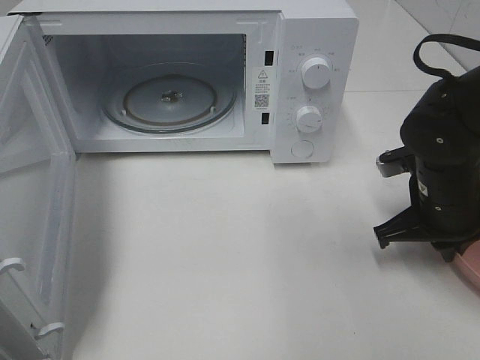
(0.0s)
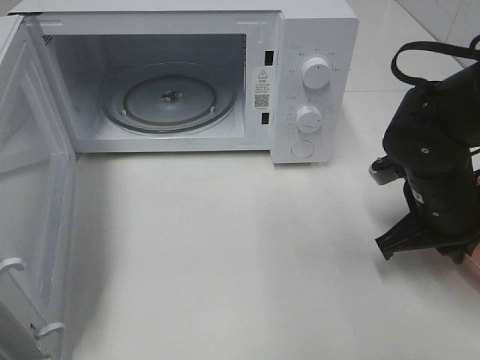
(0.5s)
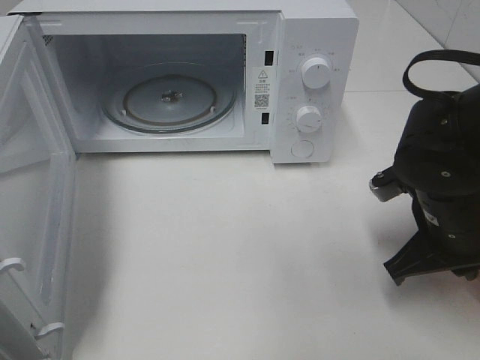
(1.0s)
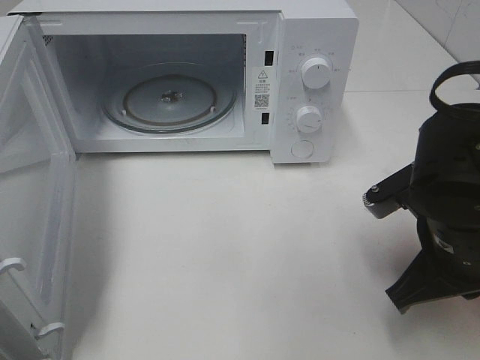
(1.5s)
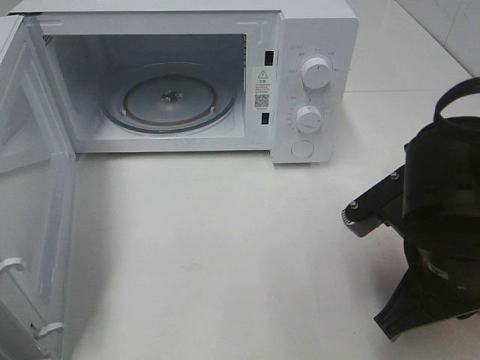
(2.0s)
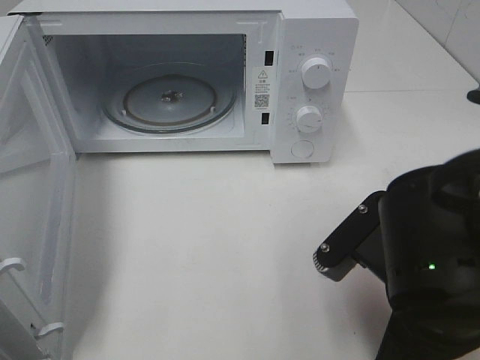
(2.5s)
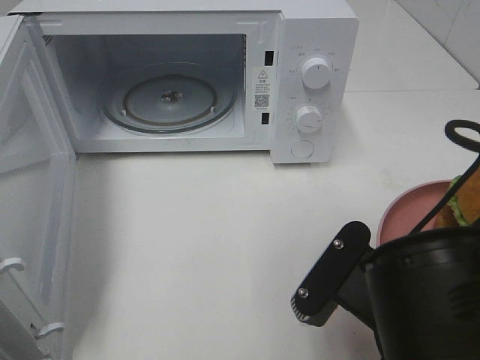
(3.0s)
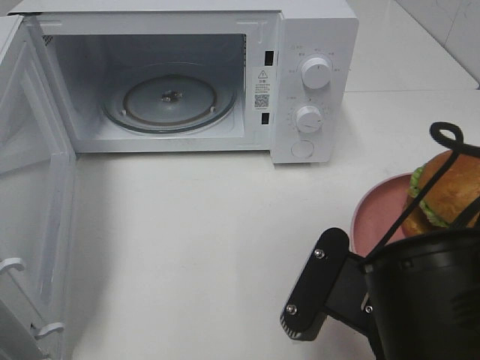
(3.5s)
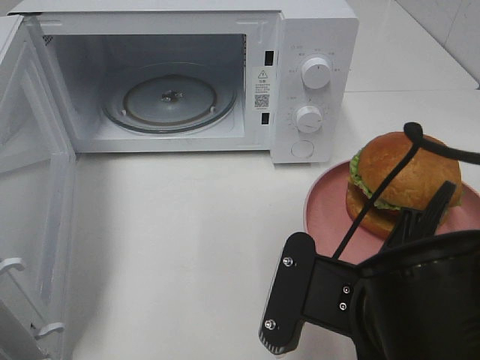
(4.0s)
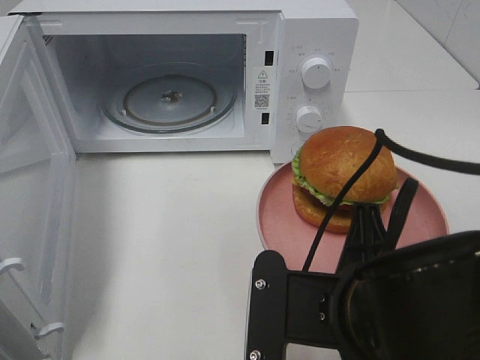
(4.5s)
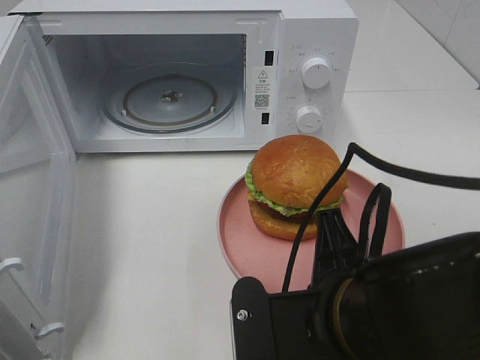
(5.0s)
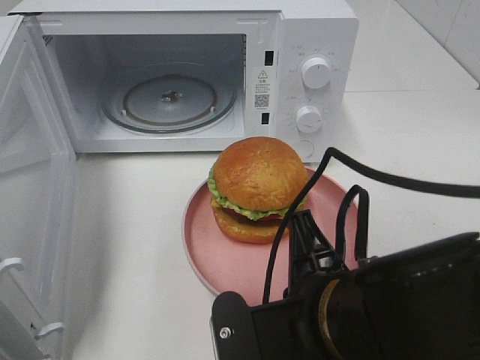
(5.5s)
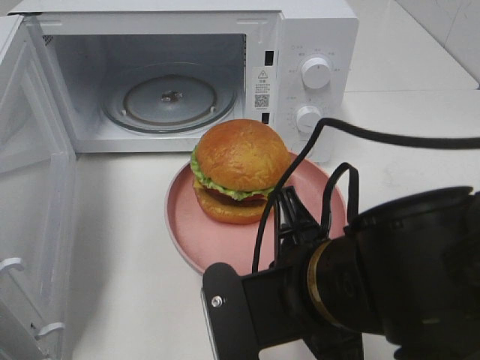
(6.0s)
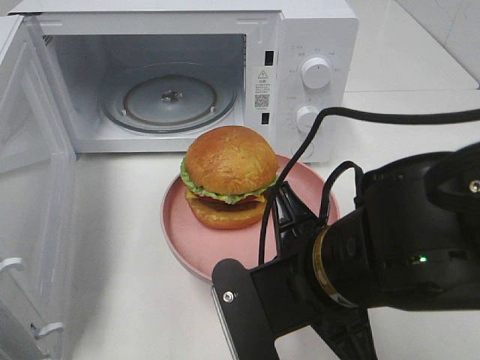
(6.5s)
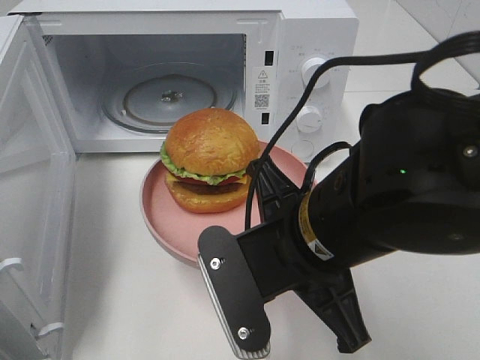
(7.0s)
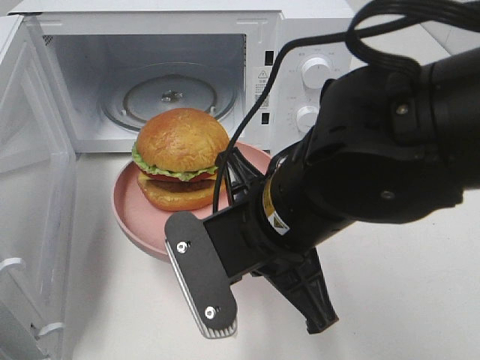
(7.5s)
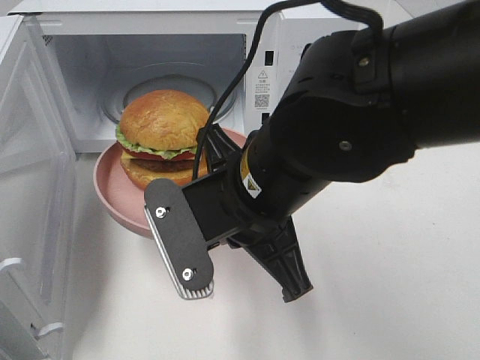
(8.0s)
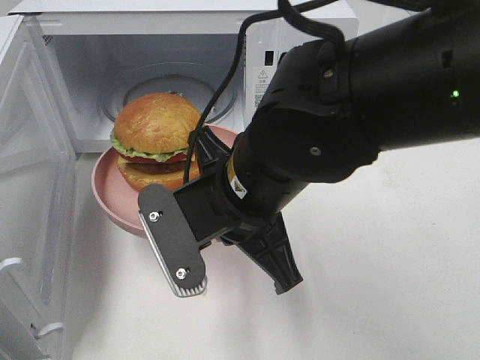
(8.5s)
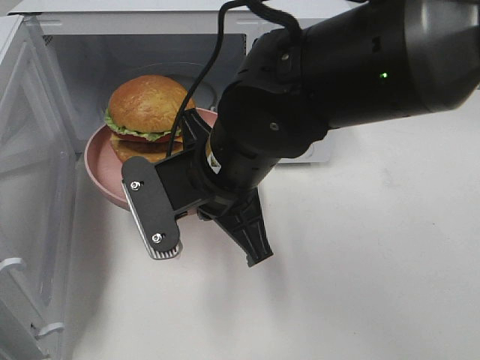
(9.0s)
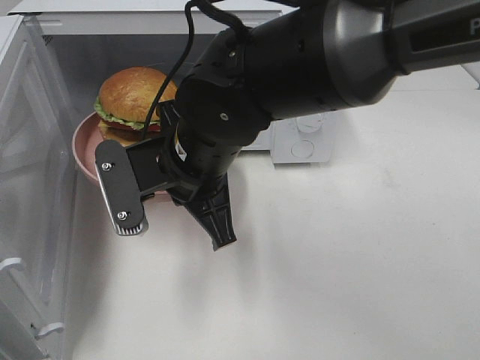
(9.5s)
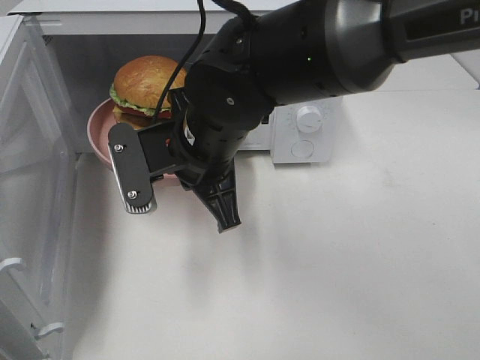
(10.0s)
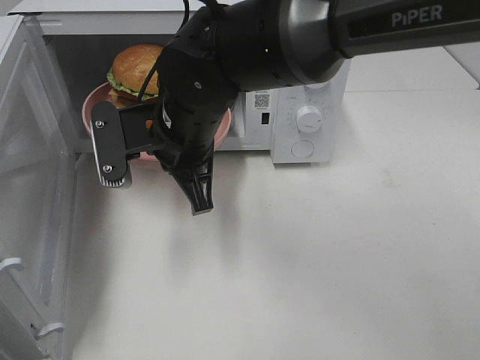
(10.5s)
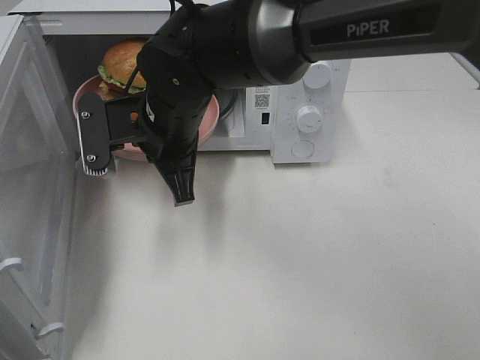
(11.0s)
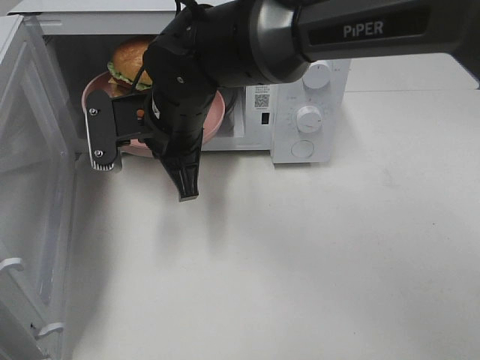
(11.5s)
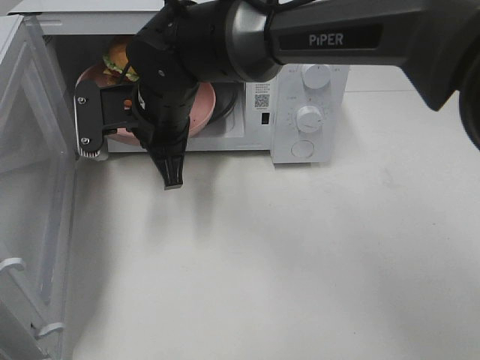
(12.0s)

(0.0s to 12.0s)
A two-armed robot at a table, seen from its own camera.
Task of the whole recording: Heat the burger.
0.0s - 2.0s: The right gripper heads backward and to the left, covering approximately 15 cm.
2.0s - 4.0s: The right gripper is displaced to the left and backward by about 10 cm.
6.0s - 8.0s: The right gripper is displaced forward by approximately 5 cm.
8.0s - 10.0s: The right gripper heads forward, covering roughly 10 cm.
10.0s - 12.0s: The right gripper goes approximately 10 cm forward and to the left.

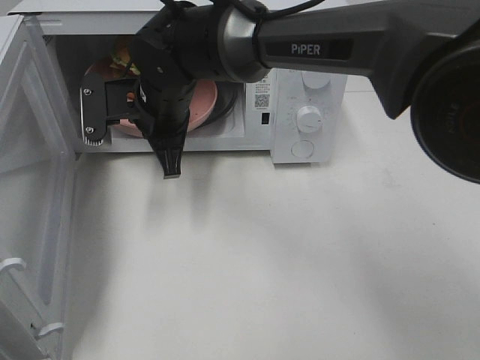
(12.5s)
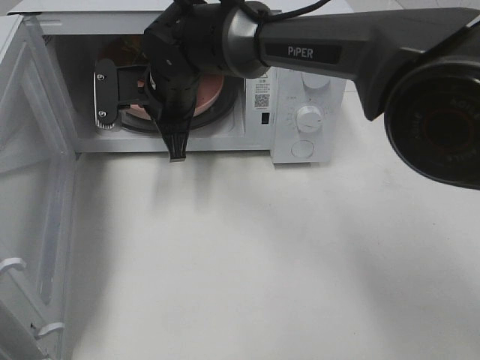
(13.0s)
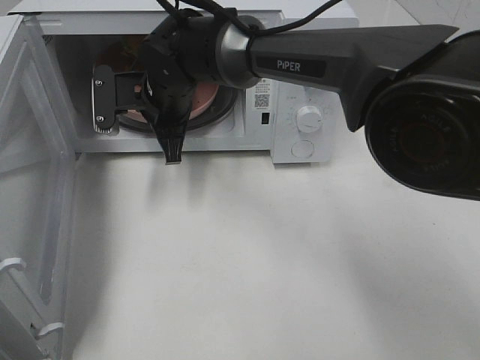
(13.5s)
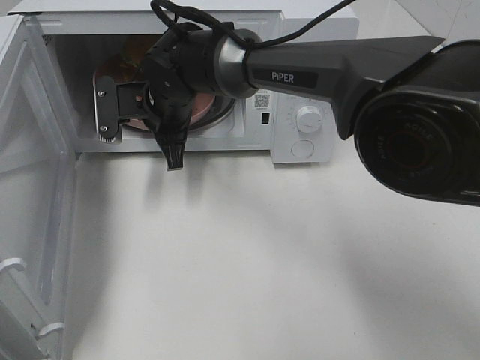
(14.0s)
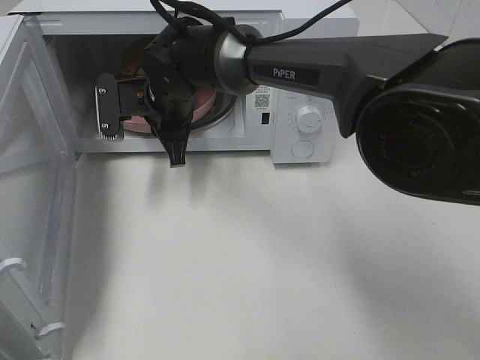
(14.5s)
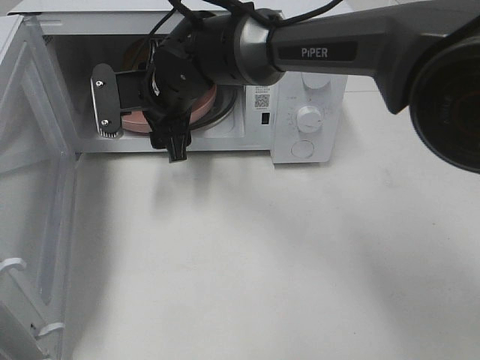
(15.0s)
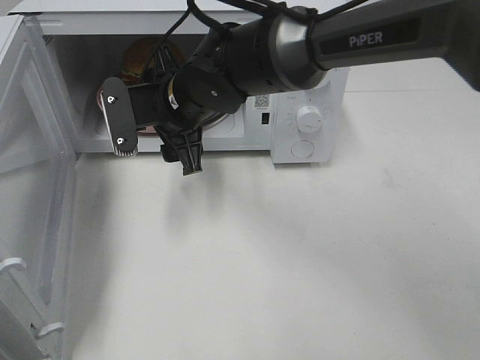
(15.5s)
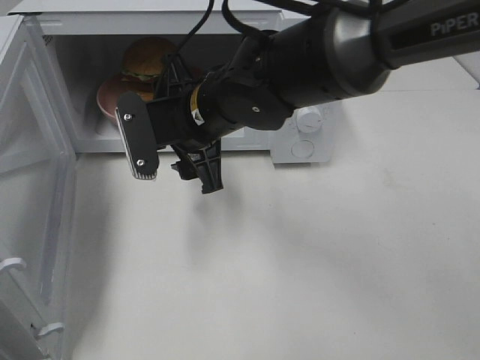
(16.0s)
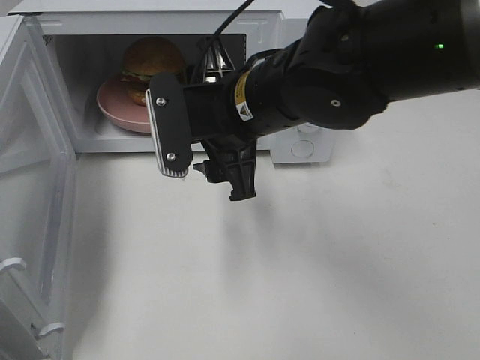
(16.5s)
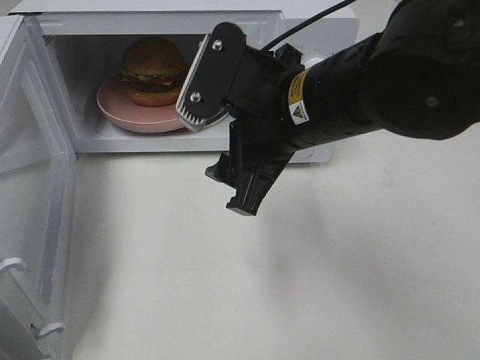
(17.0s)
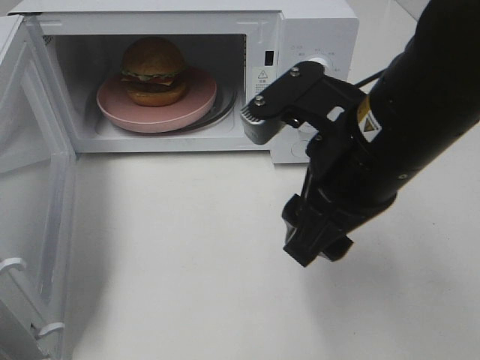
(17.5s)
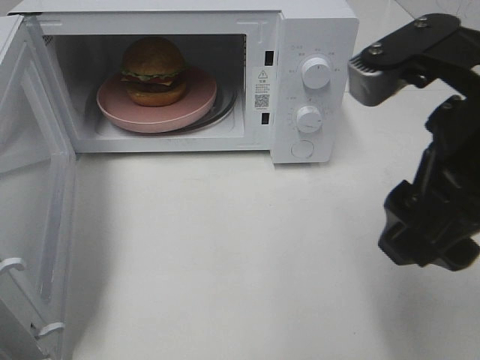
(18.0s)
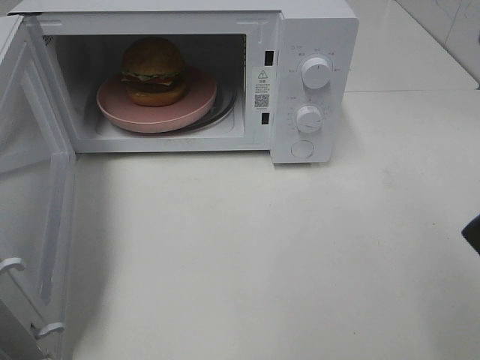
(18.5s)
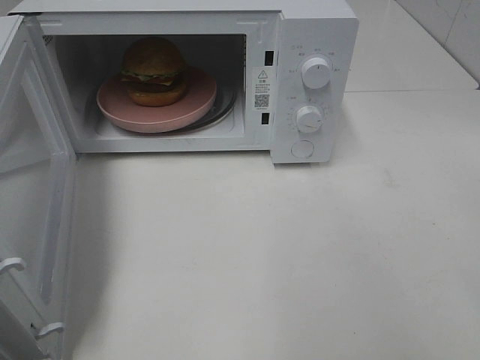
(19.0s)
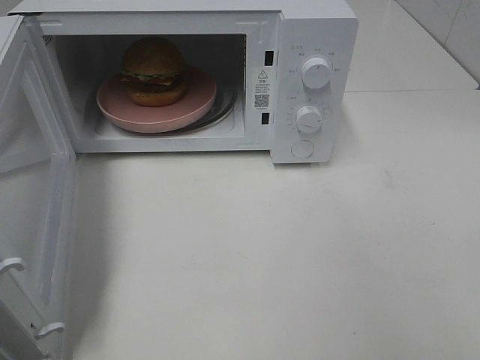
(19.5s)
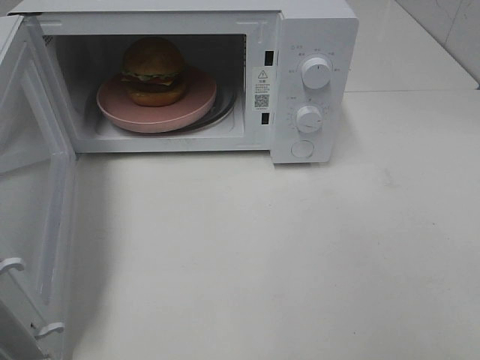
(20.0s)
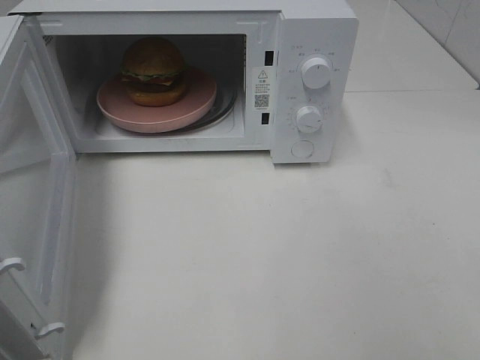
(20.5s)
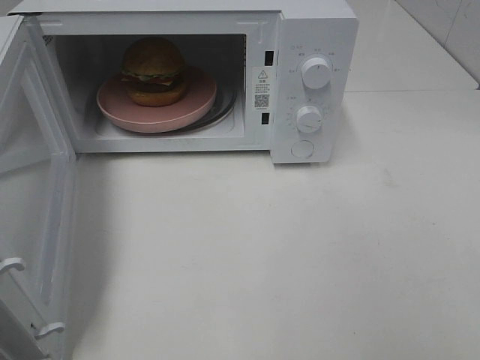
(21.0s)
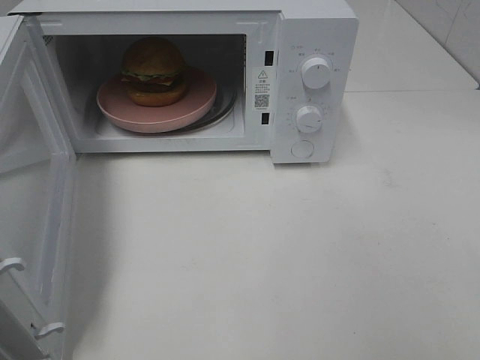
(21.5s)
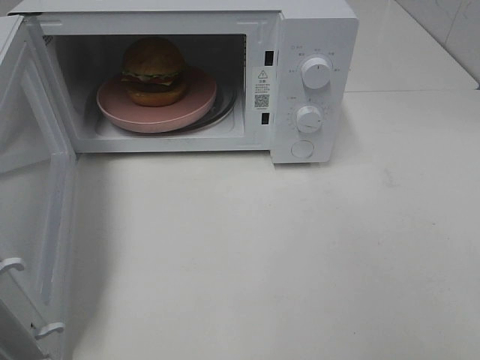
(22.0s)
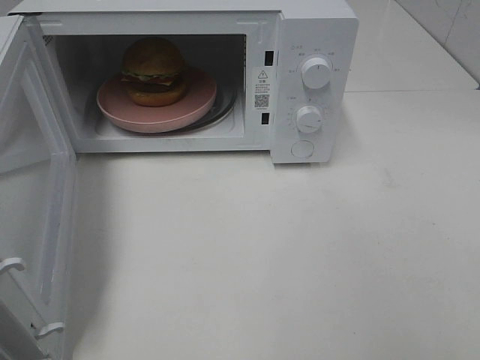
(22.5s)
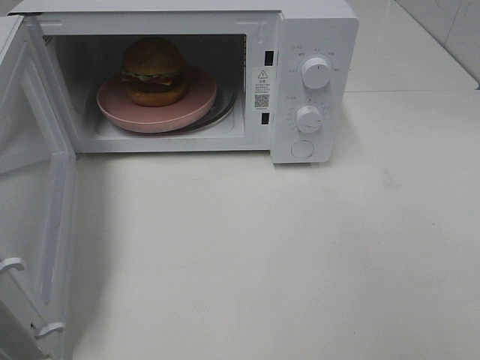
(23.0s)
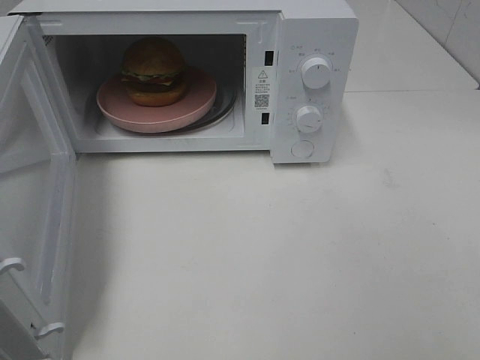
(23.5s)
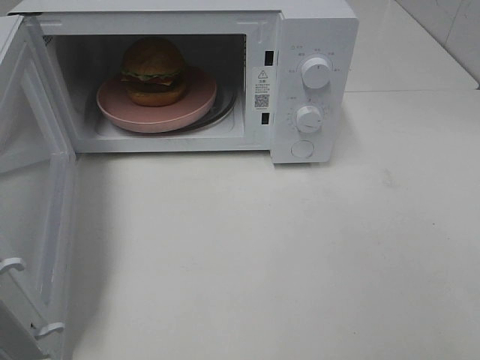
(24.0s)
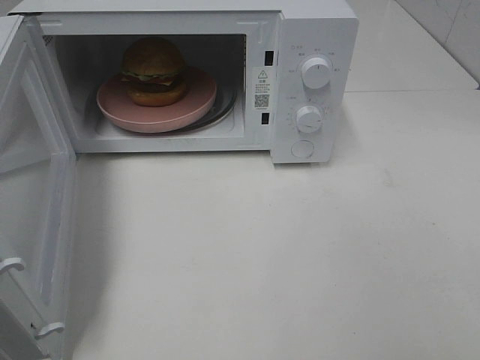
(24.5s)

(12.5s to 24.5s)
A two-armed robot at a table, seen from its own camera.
Task of the whole recording: Heat the burger.
Step, 12.5s - 14.5s: Right hand: place the plate in the microwave.
12.5s - 14.5s: There are only small adjustments of the grippers.
14.5s - 16.5s: The right gripper shifts roughly 20 cm backward, to the right and upward, and opens up.
16.5s - 18.5s: The right gripper goes about 25 cm to the right, backward and upward.
18.5s - 20.5s: The right gripper heads backward, to the right and downward, covering roughly 15 cm.
20.5s - 22.5s: The two grippers keep their place.

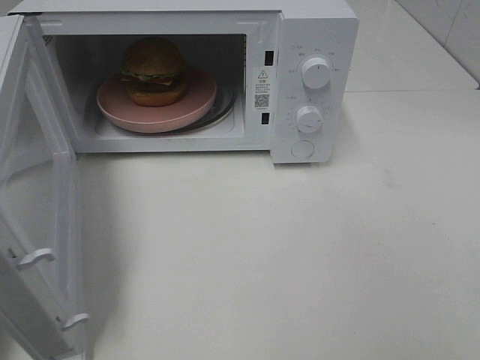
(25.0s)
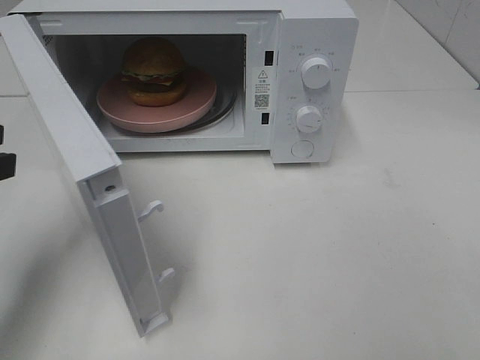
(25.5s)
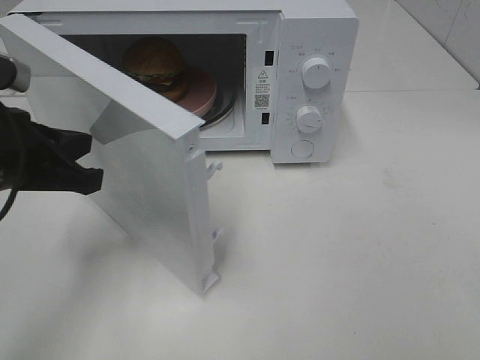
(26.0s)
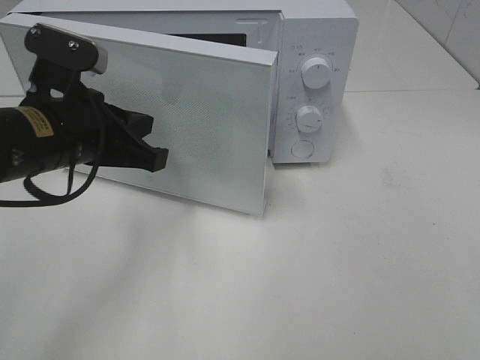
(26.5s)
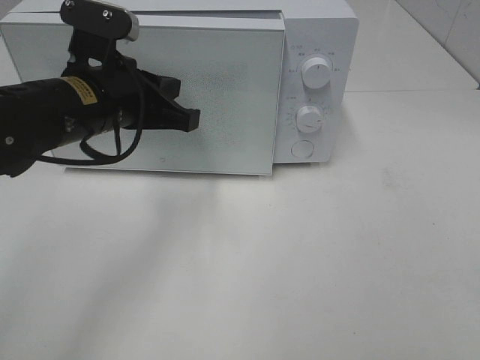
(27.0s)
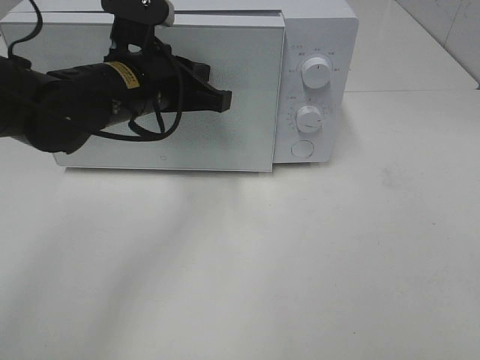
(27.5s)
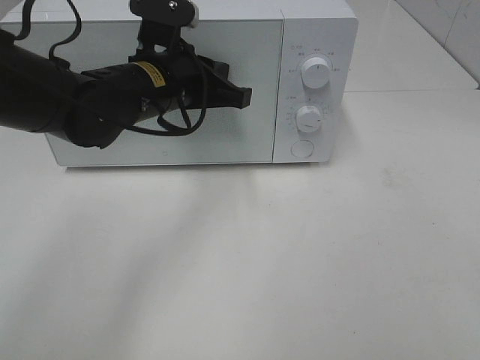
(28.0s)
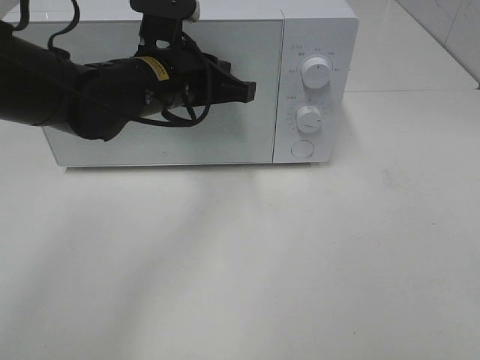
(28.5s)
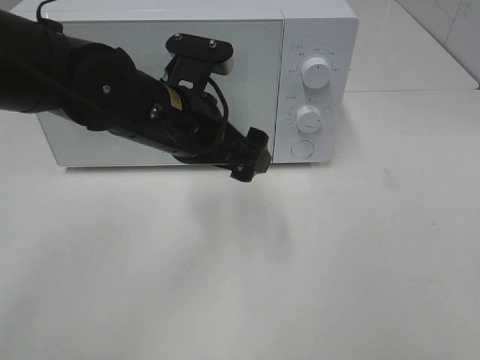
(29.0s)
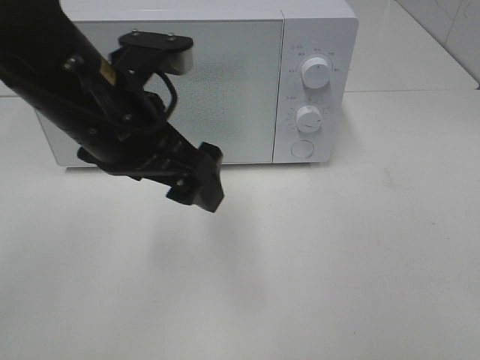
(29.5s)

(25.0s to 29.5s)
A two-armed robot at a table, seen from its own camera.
Task of the whole recording: Heat the burger.
Step, 25.0s - 28.5s: Left hand: close the microwave door.
25.0s - 27.0s: The left gripper is displaced to the right and forward by about 20 cm.
27.0s - 29.5s: The left gripper moves backward, roughly 5 cm, and opens its fingers.
